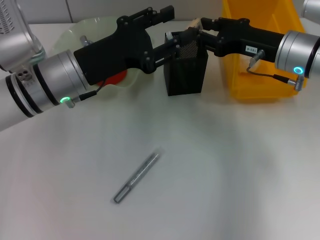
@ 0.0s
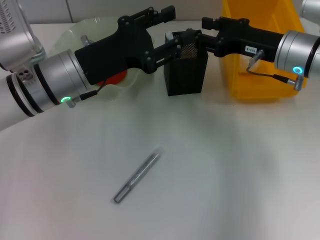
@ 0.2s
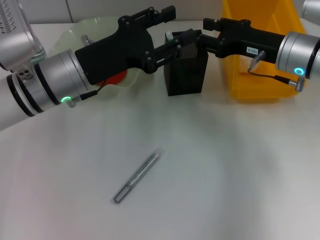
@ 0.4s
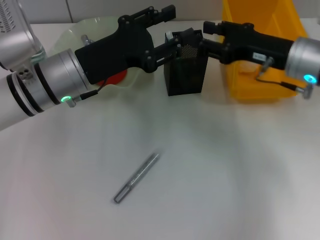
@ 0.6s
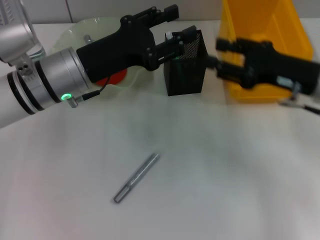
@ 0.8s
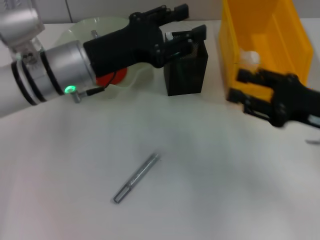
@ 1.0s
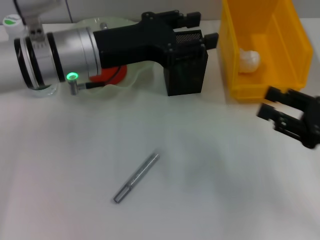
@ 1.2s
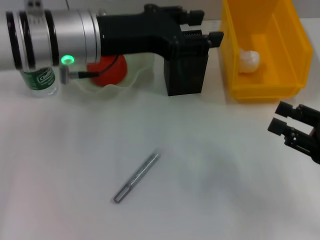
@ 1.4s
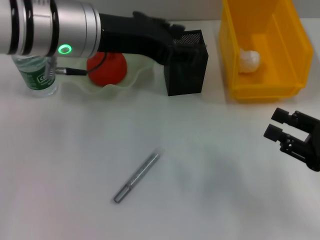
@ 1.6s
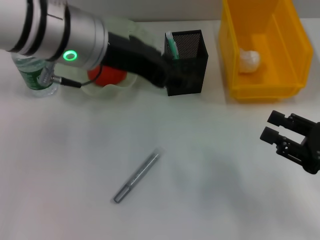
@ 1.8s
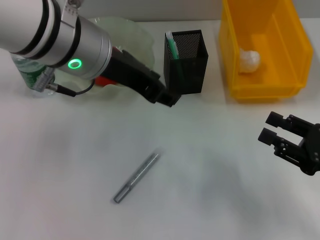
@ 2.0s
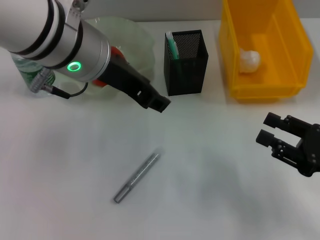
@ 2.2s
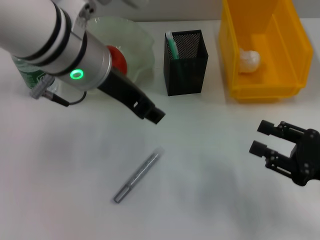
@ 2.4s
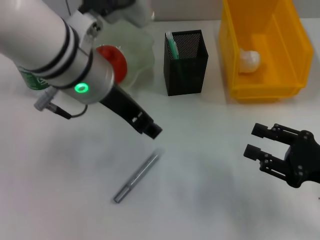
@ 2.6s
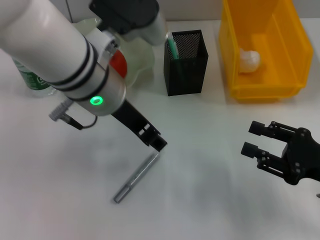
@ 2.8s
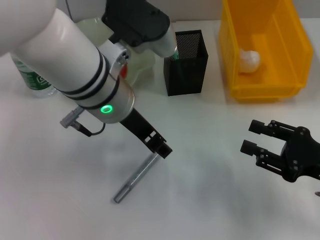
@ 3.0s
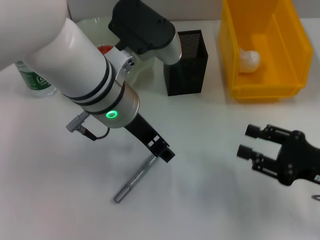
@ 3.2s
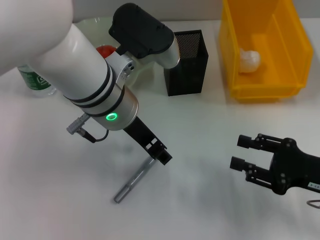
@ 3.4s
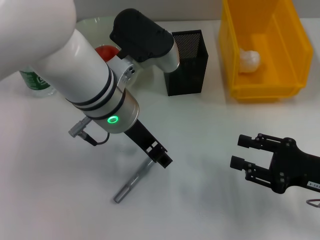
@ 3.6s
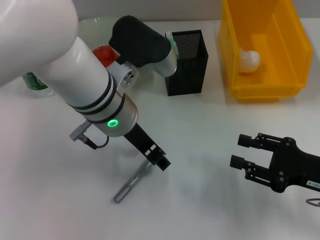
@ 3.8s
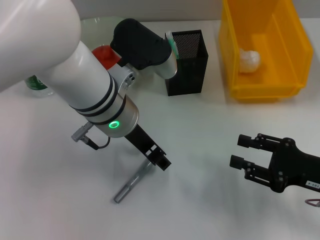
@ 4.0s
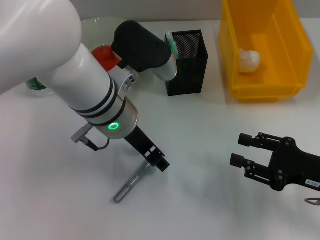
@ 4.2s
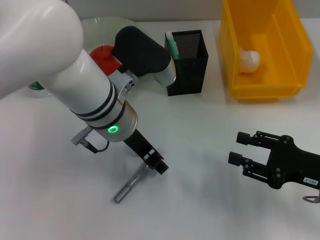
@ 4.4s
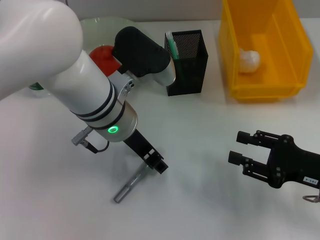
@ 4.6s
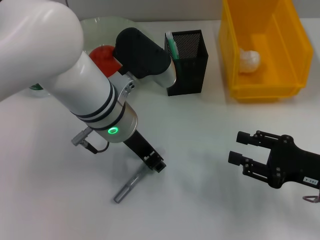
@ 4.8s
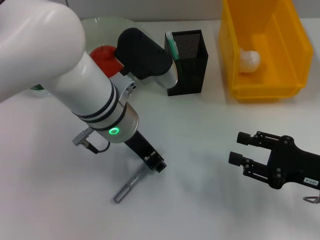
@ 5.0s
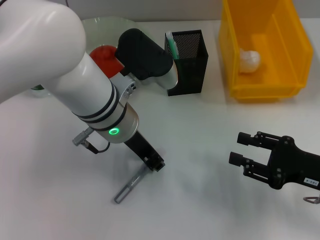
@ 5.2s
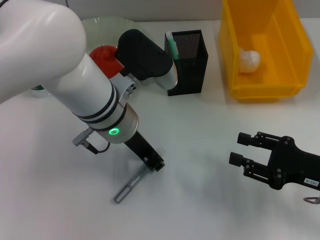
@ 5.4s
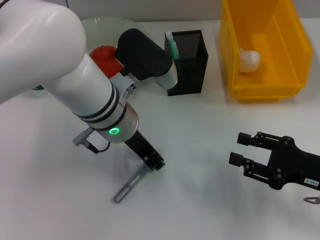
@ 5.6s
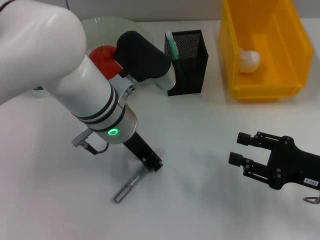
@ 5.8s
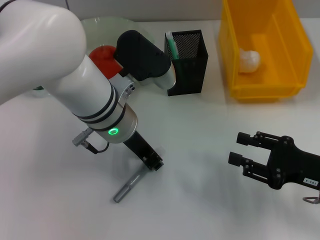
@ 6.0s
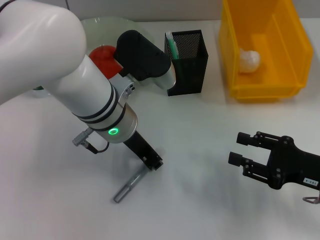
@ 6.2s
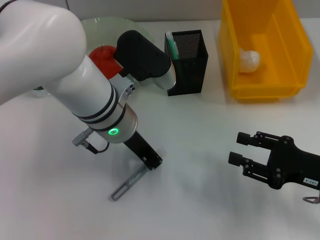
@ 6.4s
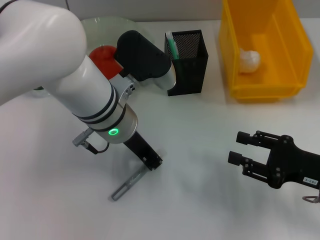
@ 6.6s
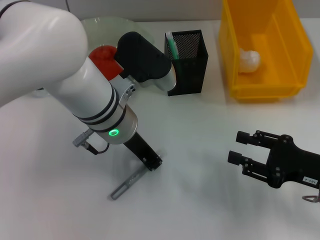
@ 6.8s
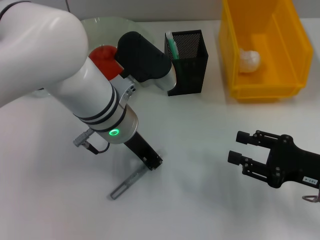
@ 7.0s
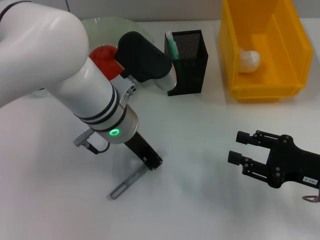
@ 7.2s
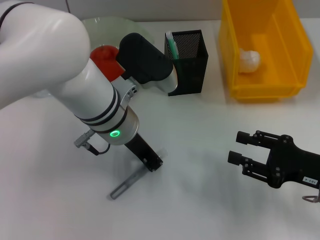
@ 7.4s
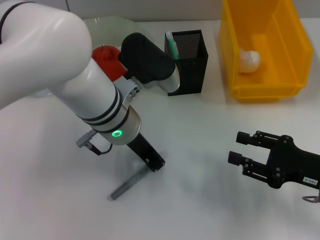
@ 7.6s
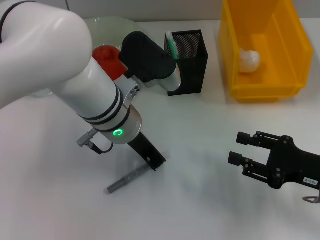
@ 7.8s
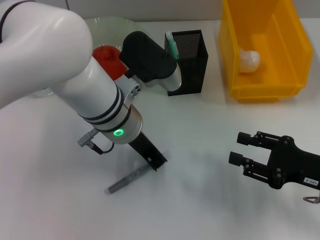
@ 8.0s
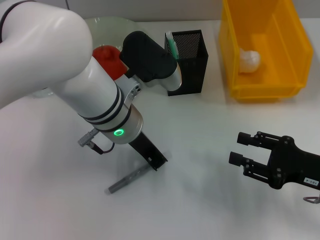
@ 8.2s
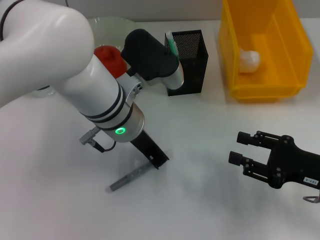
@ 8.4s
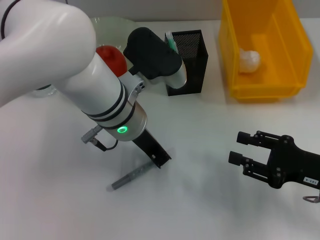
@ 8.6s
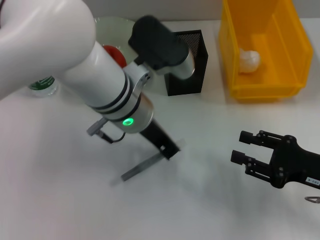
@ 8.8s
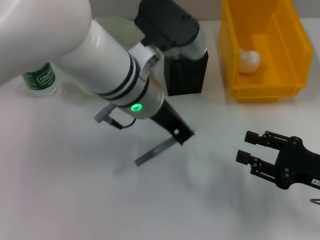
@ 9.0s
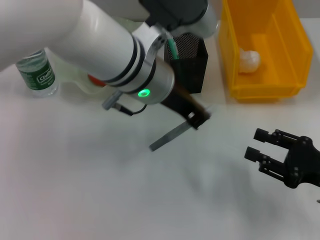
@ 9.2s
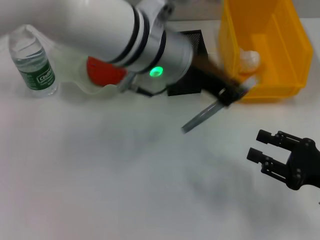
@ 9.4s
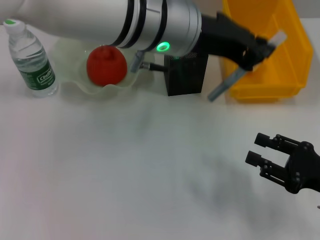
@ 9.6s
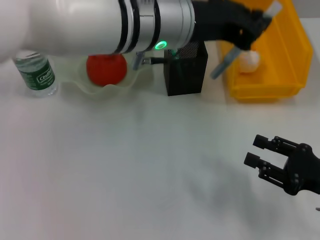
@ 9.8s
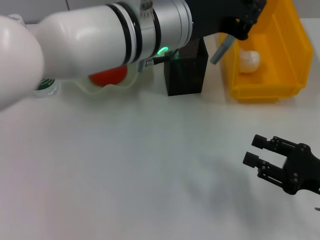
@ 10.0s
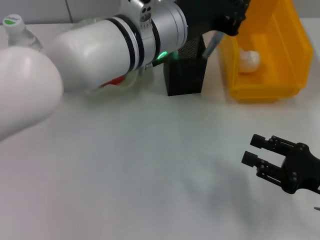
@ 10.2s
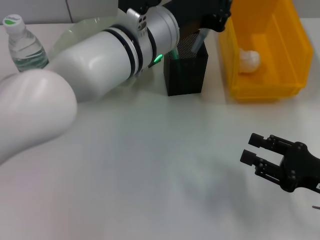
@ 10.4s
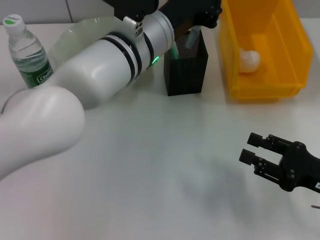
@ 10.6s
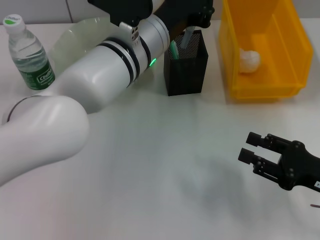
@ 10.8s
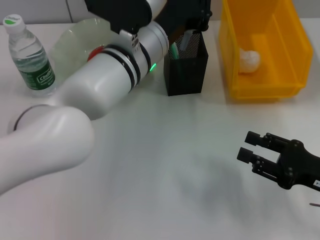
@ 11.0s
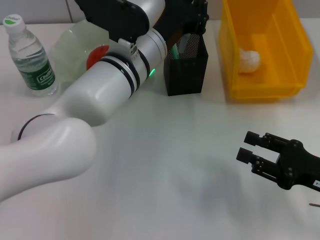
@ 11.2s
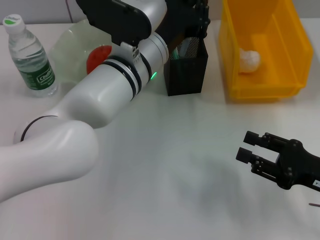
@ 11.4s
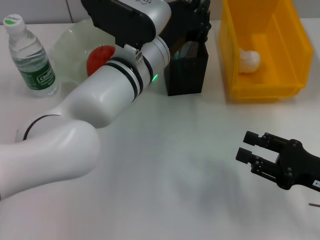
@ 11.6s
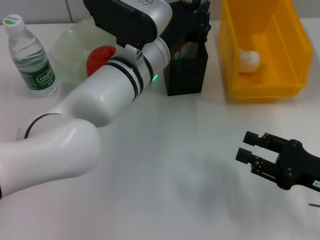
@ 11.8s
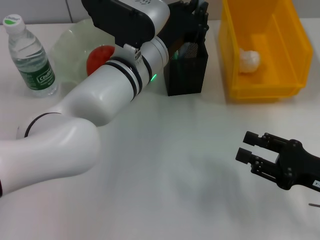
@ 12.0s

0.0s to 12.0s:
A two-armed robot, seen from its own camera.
Step, 0.4s to 8.2s: Grab the gray glue with the left hand.
0.0s to 1.6s: The right gripper heads backward and to the right, covering roughly 20 cm. Meanwhile the left gripper is displaced upward by roughly 10 cm.
1.6s to 3.0s: The left gripper travels to the right by roughly 5 cm.
3.0s to 4.4s: The left gripper goes about 5 cm downward.
4.4s to 6.0s: The left gripper closes up.
6.0s to 7.6s: Neither gripper changes place.
7.6s to 9.0s: The left gripper ends up roughly 5 cm from where it was.
10.4s to 12.0s: The left gripper travels downward by some 5 cm.

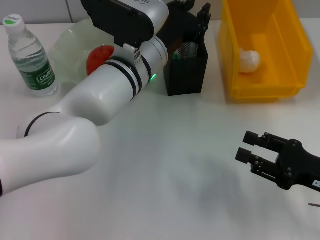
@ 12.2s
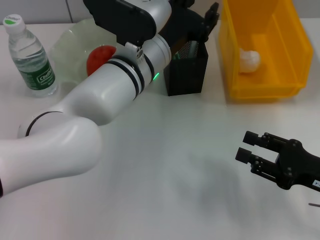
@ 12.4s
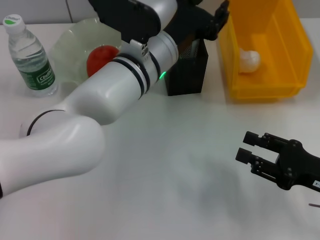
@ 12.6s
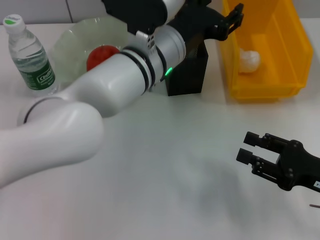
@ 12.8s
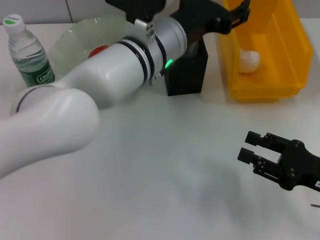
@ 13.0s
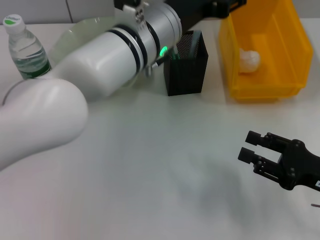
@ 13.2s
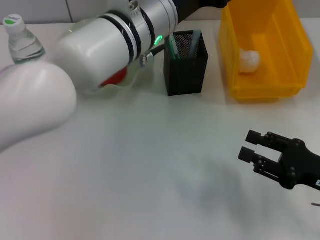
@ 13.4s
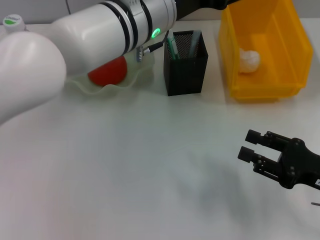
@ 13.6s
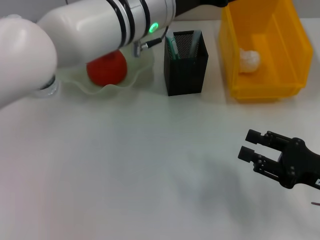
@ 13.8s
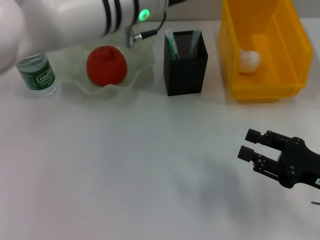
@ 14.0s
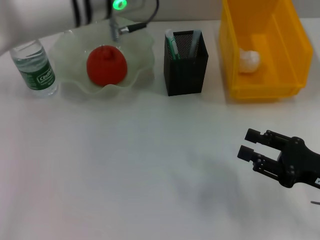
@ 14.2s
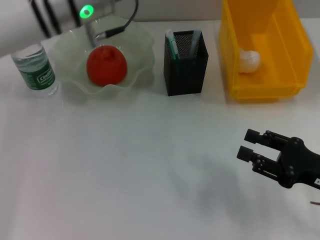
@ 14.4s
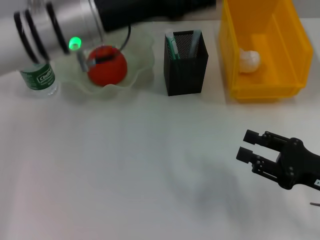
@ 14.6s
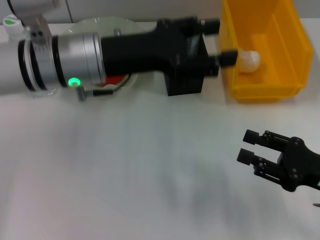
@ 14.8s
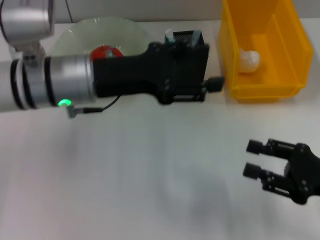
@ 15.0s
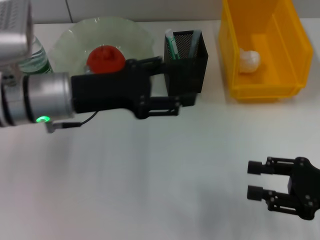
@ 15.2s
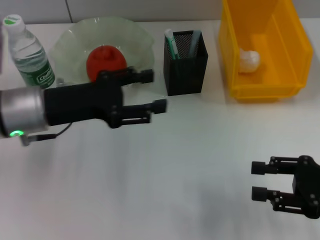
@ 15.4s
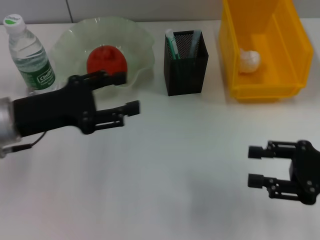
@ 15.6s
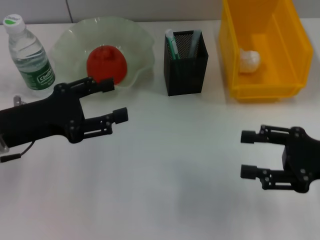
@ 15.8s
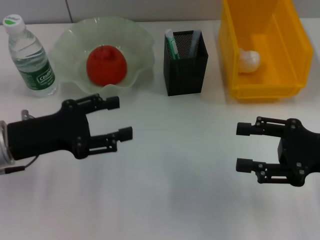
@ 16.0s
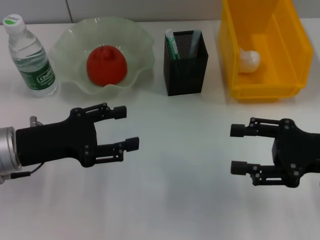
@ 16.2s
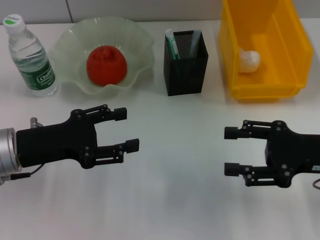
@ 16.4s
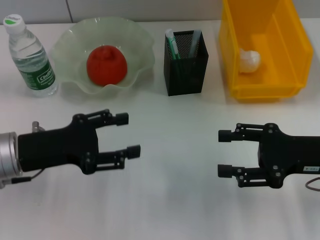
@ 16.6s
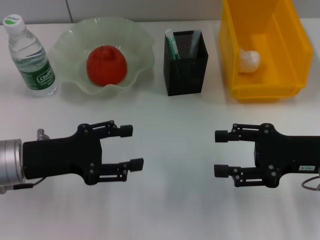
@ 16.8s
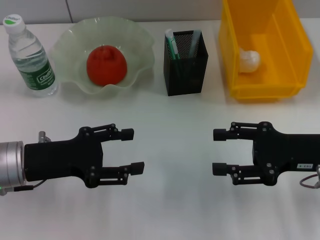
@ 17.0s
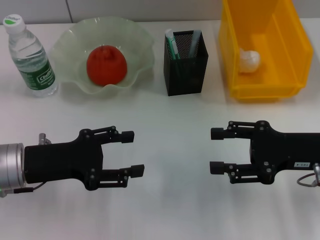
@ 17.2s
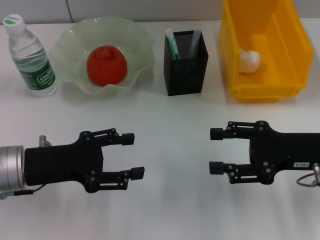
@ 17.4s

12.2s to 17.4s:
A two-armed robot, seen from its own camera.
12.2s to 14.0s: The left gripper goes about 10 cm upward, and opens up.
14.0s to 15.6s: The right gripper shifts by roughly 5 cm; the left gripper heads to the left, downward and backward, covering about 25 cm.
15.6s to 17.4s: The right gripper shifts by some 5 cm.

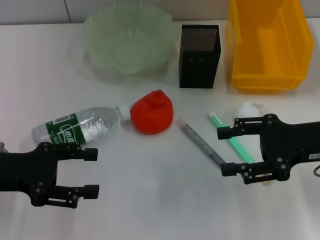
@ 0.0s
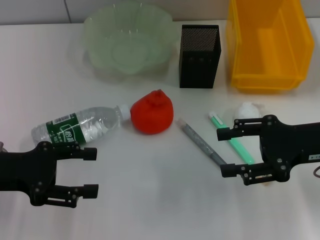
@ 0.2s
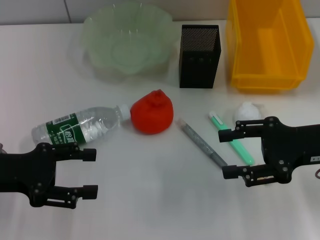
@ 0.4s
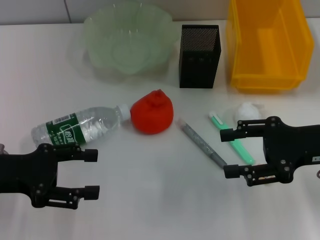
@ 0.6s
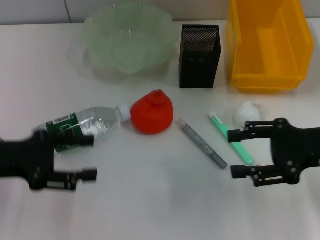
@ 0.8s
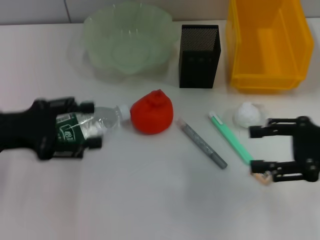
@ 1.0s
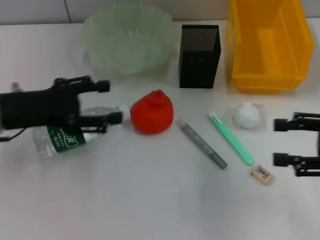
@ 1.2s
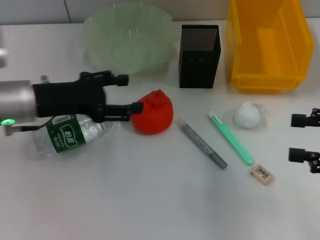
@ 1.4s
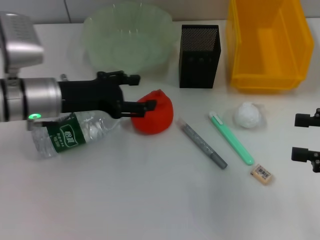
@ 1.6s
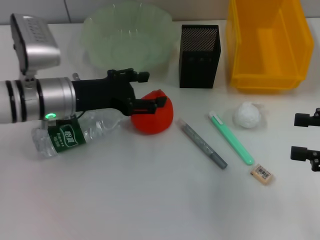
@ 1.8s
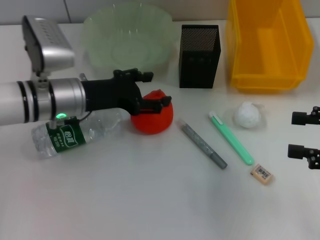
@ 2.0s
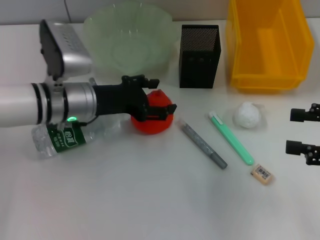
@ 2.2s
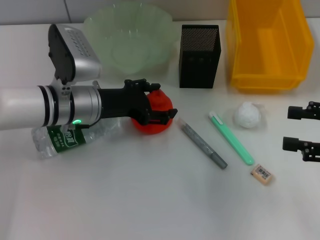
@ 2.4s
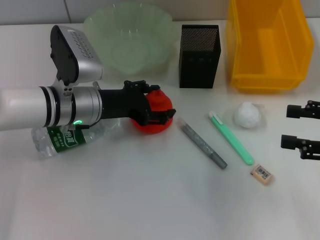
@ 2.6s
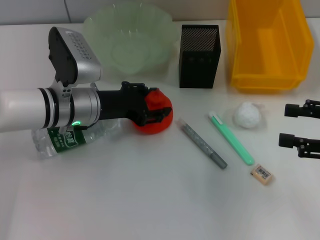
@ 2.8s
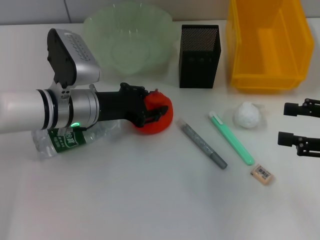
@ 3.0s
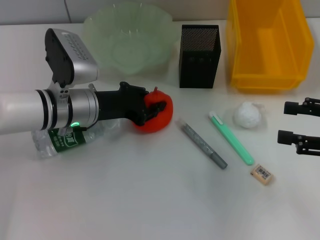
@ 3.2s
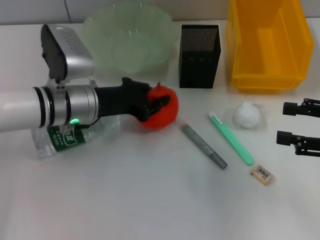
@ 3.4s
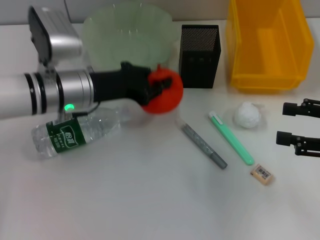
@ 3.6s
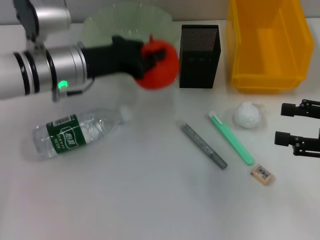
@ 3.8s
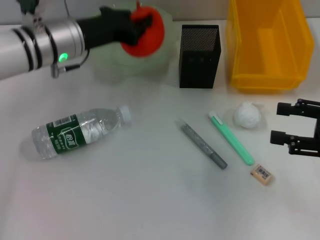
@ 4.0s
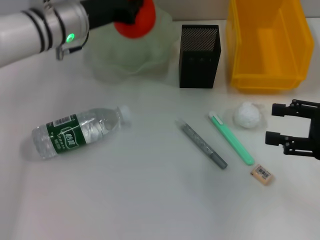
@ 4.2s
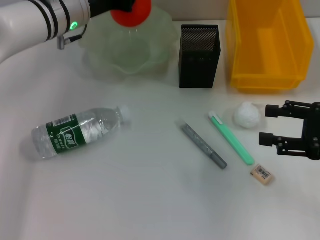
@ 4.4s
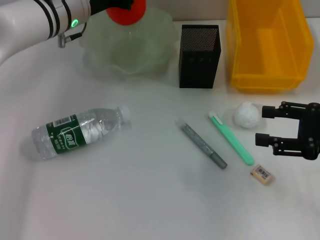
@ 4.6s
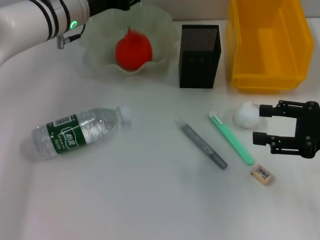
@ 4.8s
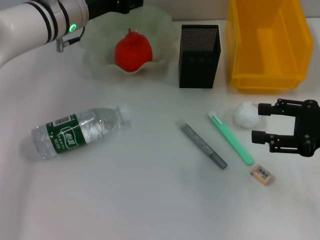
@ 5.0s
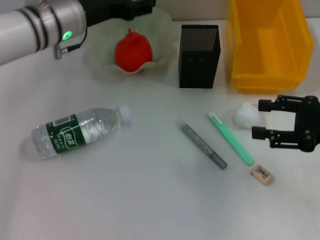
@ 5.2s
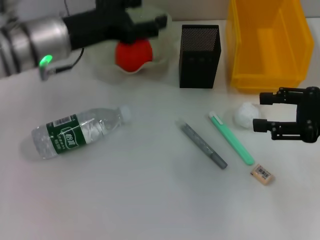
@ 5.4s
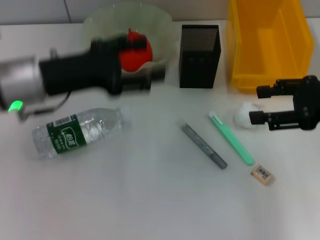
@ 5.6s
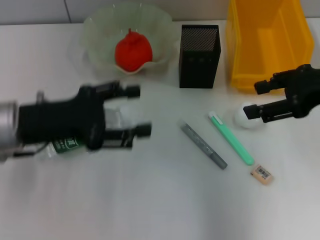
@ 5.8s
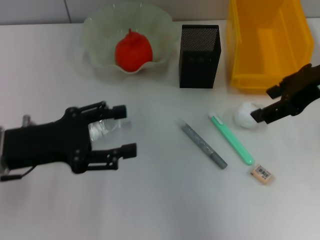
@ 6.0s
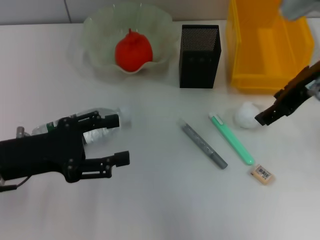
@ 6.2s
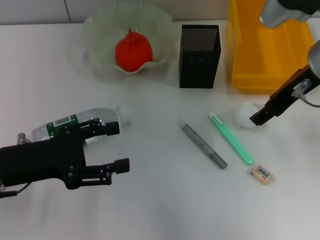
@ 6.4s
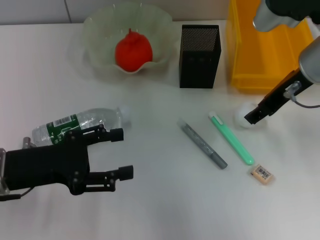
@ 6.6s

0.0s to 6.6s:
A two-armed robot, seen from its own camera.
Step, 0.0s to 3.0s: Grab the orange with the left hand.
Step, 3.2s to 5.0s: Place the orange into the fruit bowl with the left hand.
0.0s to 1.6s: The left gripper is displaced forward and to the right by about 15 cm, while the right gripper is displaced to the right by some 10 cm.
1.6s to 3.2s: The left gripper moves about 5 cm, and closes.
3.2s to 5.0s: The left gripper heads forward and upward, covering about 10 cm, and closes and opens again.
5.0s to 6.6s: The right gripper heads to the left, forward and upward, covering approximately 15 cm; the left gripper travels backward and to the left by approximately 25 cm, and opens up.
